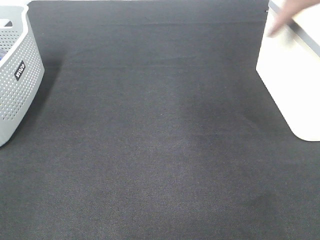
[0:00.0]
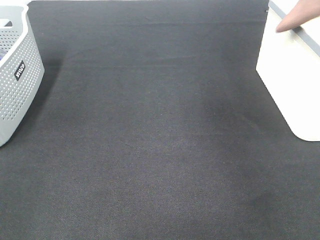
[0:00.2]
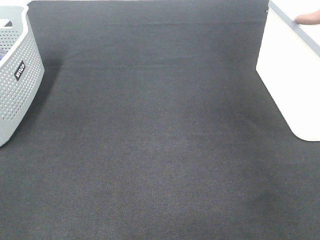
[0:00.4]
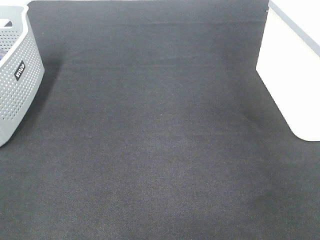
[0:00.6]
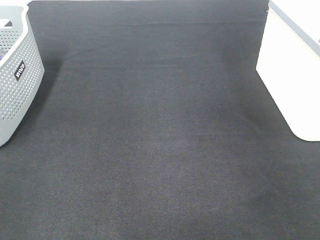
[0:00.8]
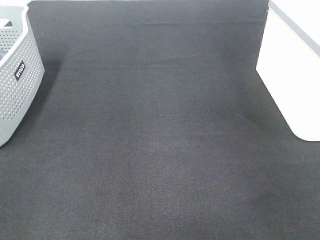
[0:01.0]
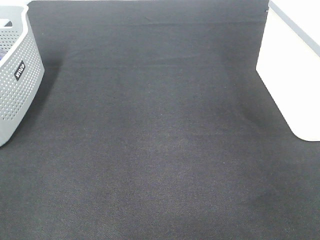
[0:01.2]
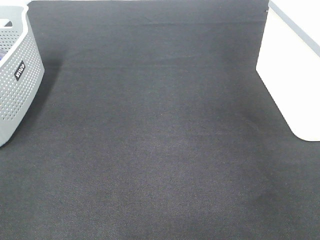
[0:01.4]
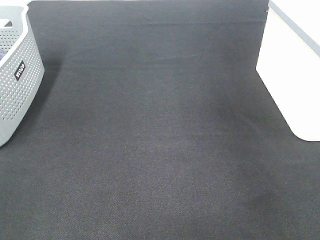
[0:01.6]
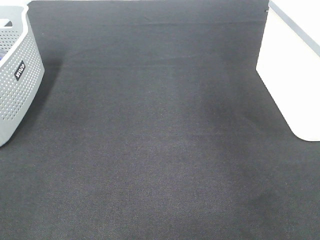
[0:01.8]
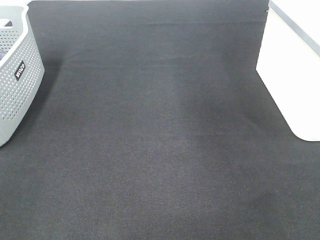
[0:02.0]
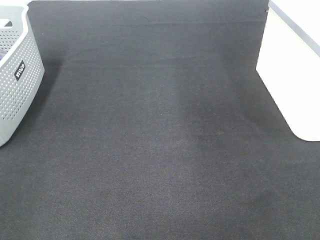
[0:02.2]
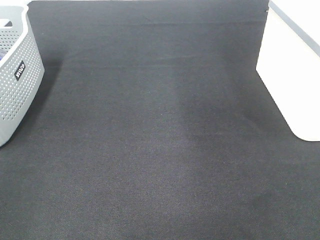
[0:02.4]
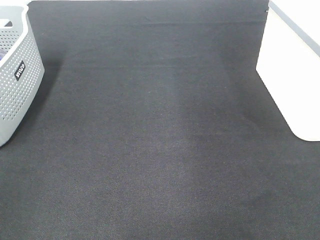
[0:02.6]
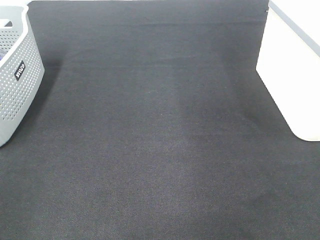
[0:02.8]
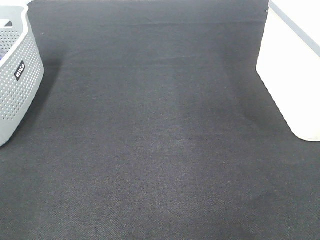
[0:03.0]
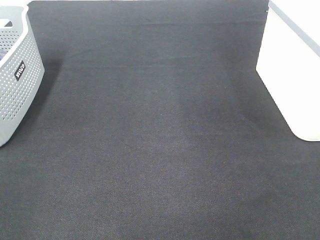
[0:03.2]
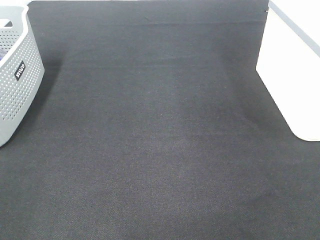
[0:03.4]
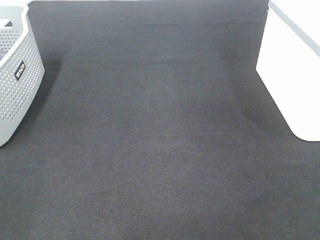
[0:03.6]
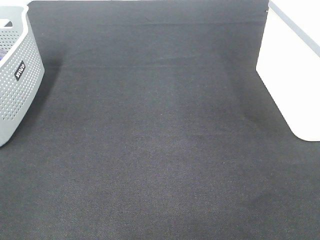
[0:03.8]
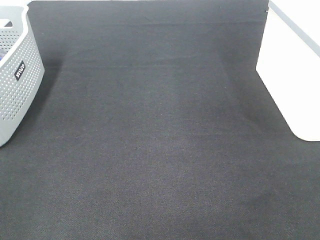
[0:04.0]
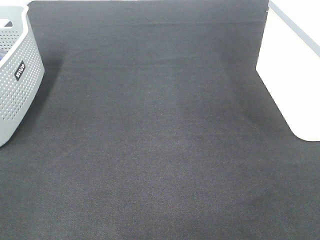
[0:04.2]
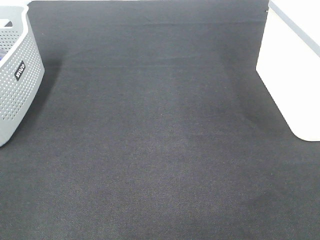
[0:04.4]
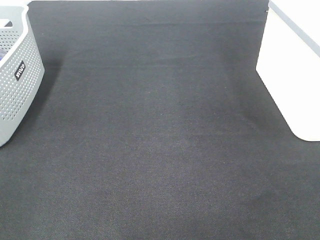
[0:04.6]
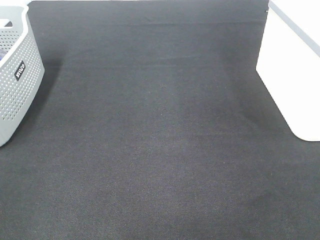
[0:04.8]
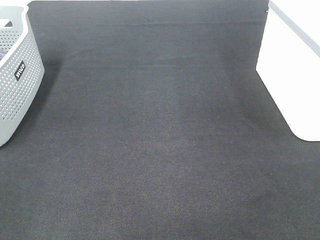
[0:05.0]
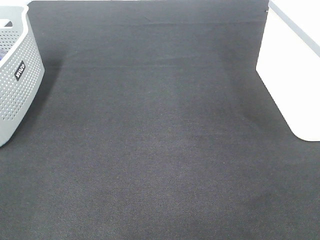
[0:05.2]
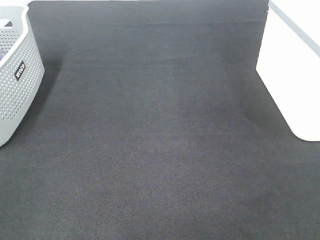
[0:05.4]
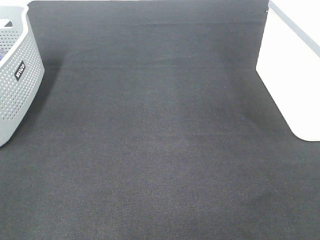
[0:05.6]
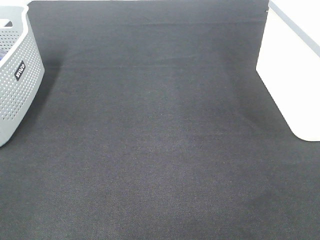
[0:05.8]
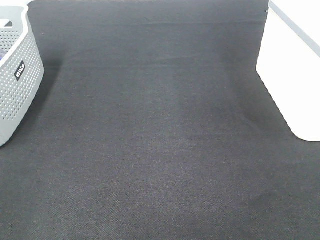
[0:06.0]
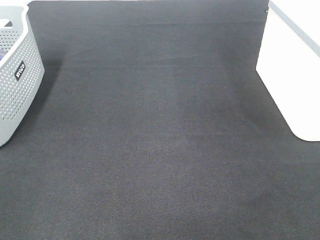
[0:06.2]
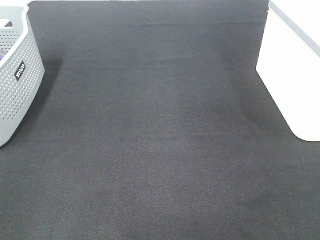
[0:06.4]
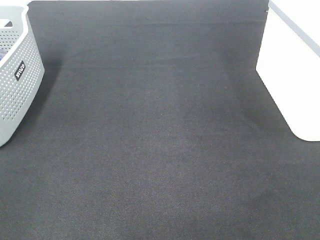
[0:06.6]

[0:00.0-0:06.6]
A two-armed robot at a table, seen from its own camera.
0:00.0 to 0:01.6: The right gripper goes to the right and returns, approximately 10 cm each way, and opens its fingers.
0:05.0 to 0:06.6: Both grippers stay put.

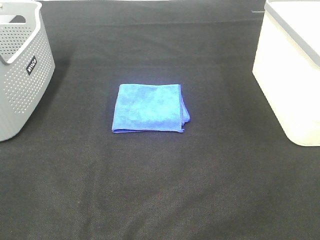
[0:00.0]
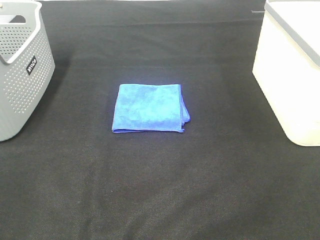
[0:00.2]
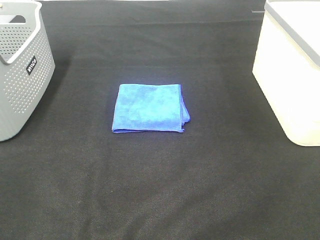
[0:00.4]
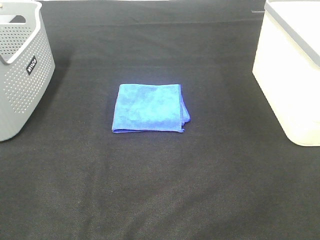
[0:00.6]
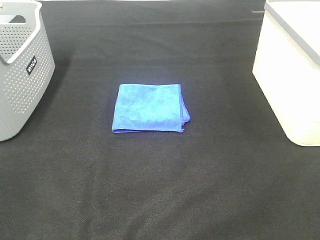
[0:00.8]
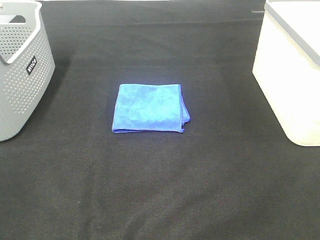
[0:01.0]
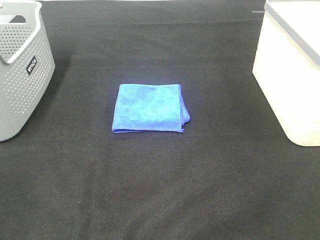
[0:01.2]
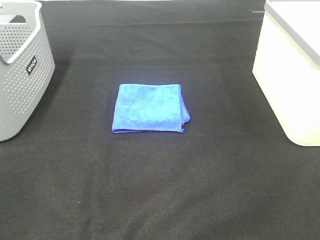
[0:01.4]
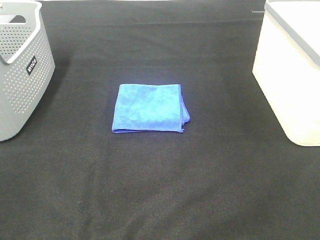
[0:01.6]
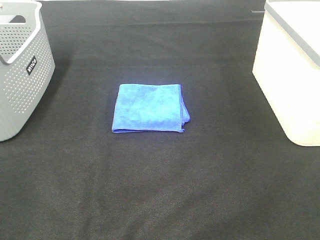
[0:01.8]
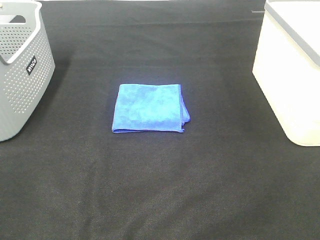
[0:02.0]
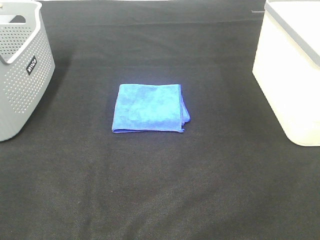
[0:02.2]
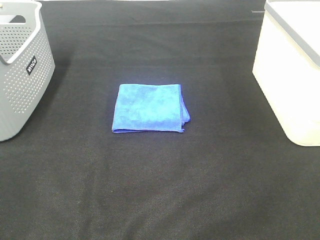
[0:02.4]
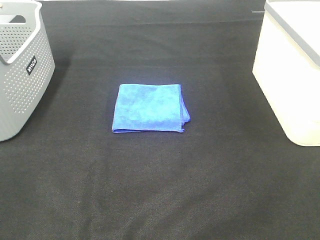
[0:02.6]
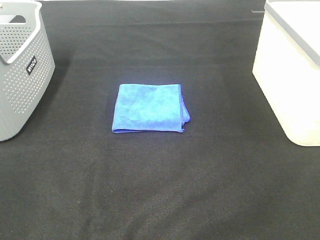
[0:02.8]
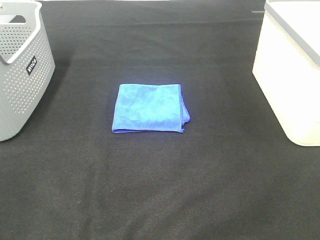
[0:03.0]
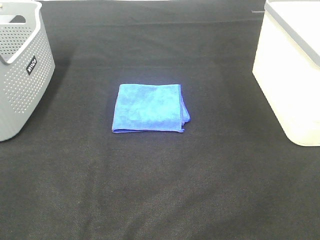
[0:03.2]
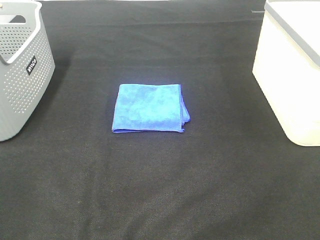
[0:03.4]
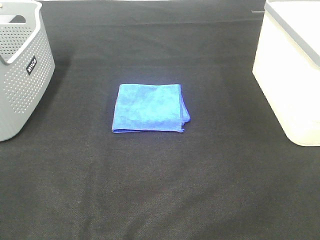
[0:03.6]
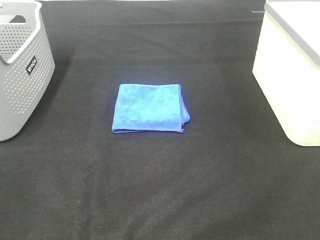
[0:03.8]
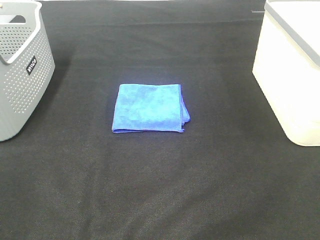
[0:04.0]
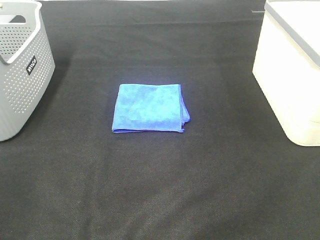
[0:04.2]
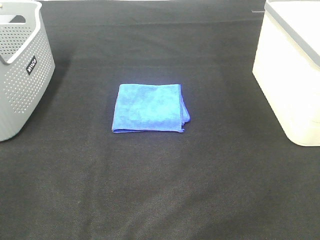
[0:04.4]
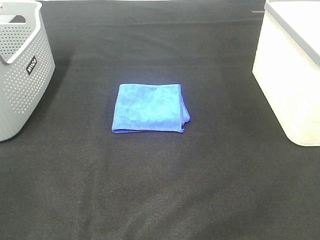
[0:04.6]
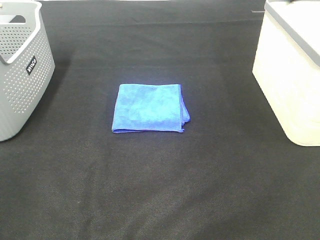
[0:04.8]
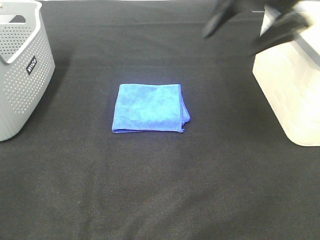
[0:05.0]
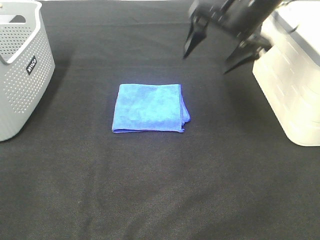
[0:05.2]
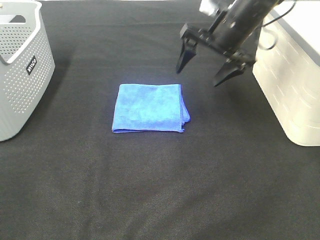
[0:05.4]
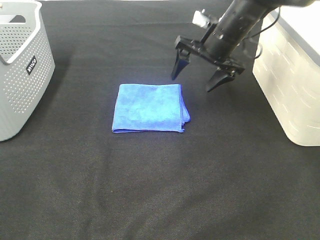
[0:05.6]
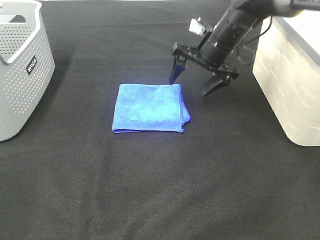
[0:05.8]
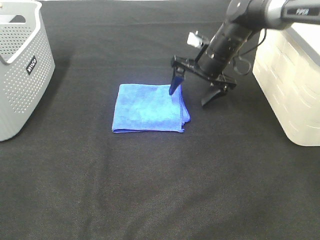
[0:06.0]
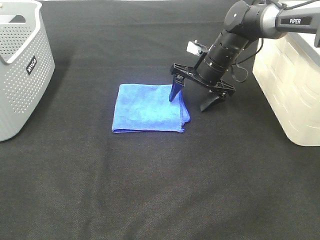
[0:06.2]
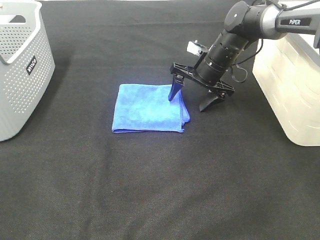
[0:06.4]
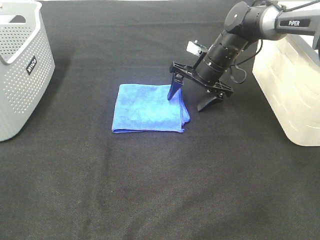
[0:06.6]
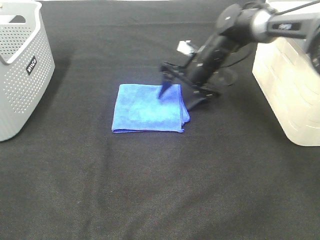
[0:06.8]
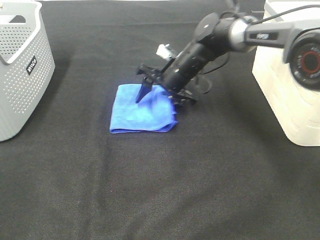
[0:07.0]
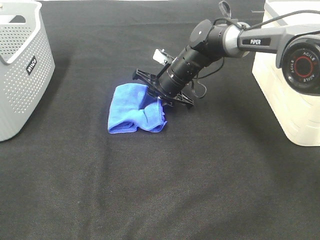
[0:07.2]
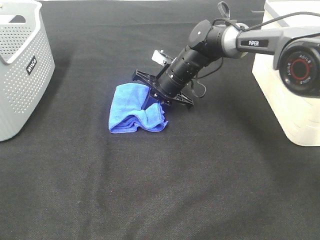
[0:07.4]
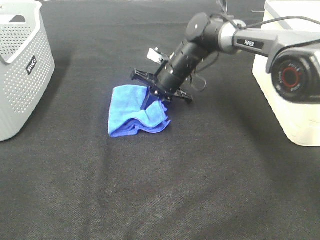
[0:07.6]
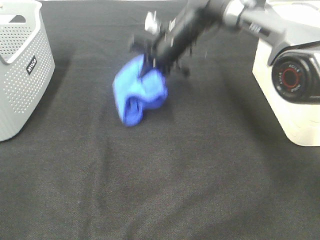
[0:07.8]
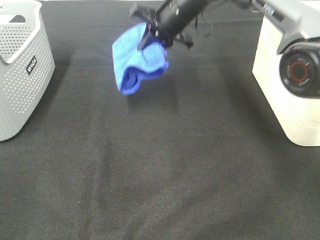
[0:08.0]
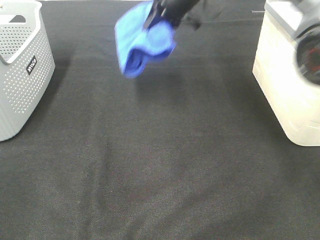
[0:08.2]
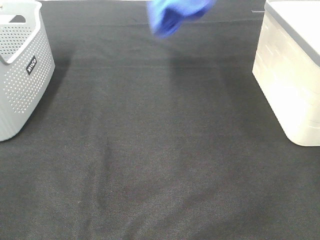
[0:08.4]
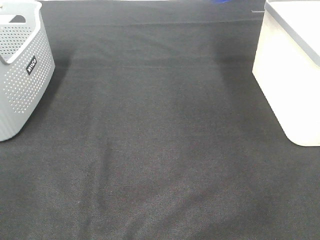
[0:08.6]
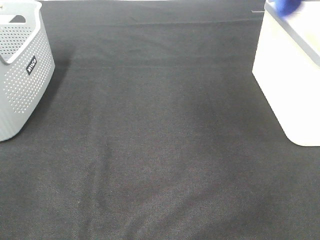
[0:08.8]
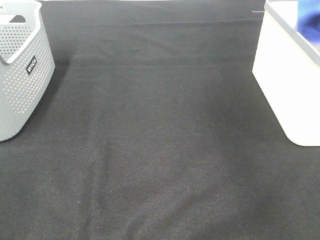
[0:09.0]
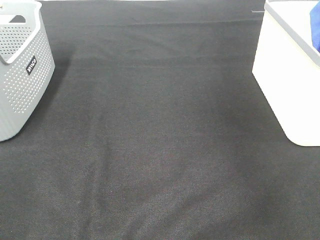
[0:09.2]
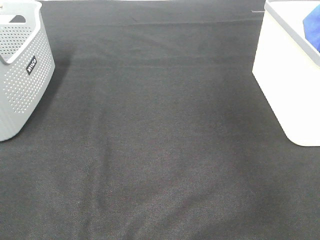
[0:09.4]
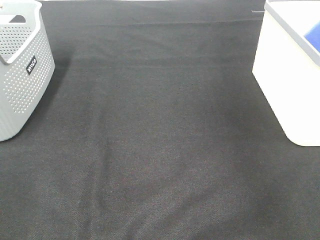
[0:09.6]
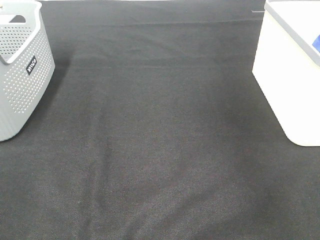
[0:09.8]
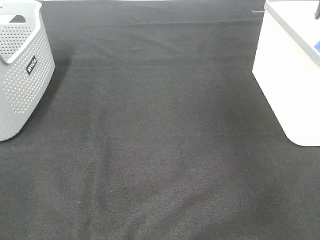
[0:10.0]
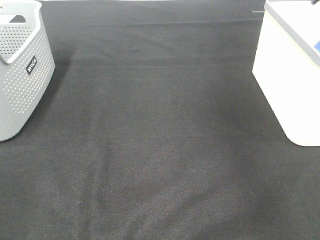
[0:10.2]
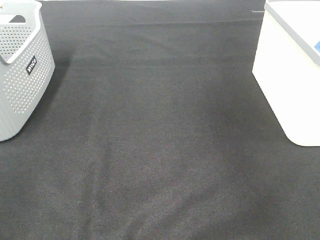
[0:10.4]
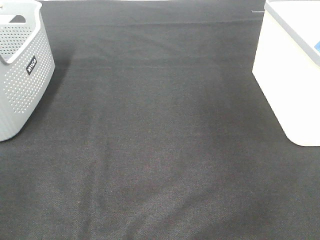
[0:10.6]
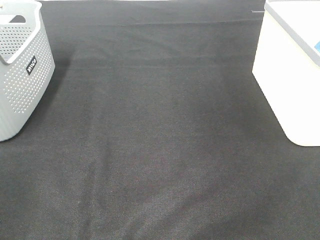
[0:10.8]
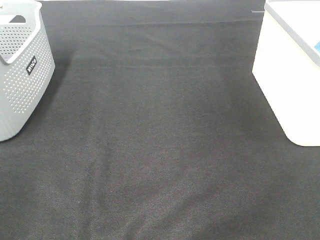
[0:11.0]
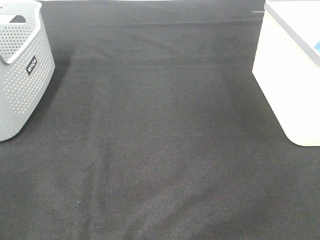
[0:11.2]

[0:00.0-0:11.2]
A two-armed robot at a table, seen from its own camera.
Step, 0:00.0 to 0:07.6: Right hand: grab the folded blue towel.
Step, 0:07.8 to 0:09.8: Right hand: place the blue towel in right basket.
0:00.0 to 0:03.2: Both grippers stay put.
0:04.8 to 0:06.4: The right gripper moves downward, forward and to the left, approximately 35 cm.
0:06.4 to 0:08.0: The right gripper travels upward and to the left by roughly 15 cm, and closes up.
0:08.0 to 0:09.6: The right gripper moves to the right, roughly 30 cm, and opens.

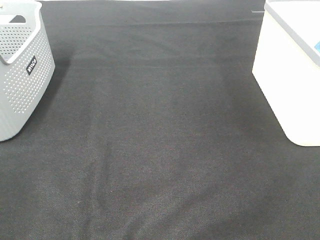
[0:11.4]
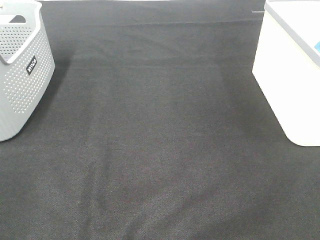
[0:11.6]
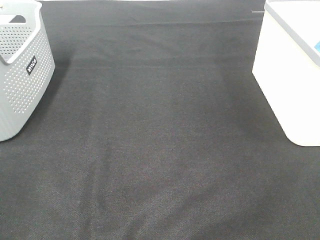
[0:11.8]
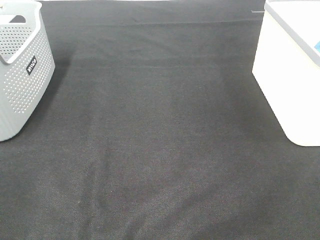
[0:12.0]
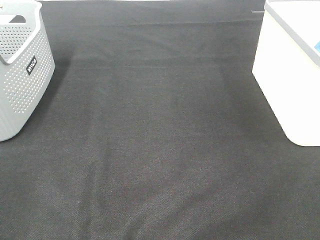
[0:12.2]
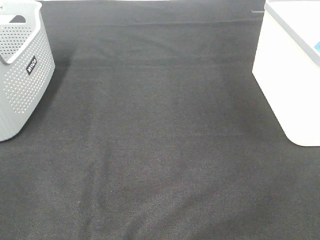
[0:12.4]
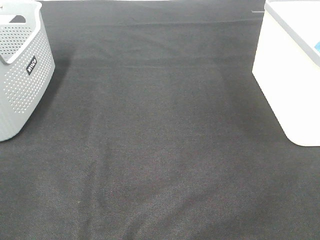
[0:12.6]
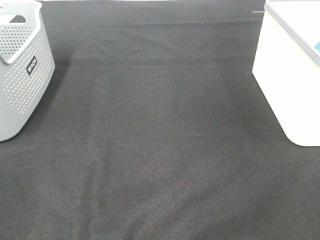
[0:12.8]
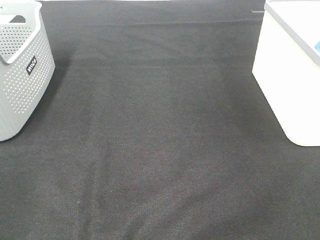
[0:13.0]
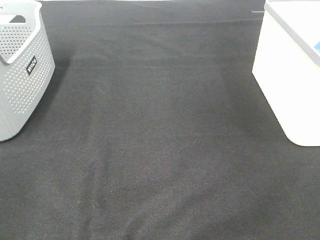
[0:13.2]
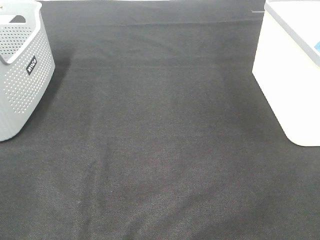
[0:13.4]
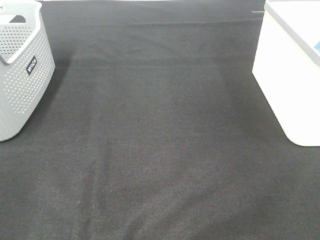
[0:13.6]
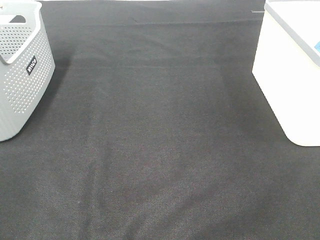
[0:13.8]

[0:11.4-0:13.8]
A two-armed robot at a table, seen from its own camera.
0:12.6 to 0:13.8: Both grippers stay put.

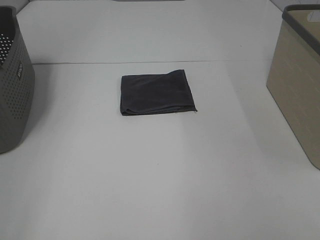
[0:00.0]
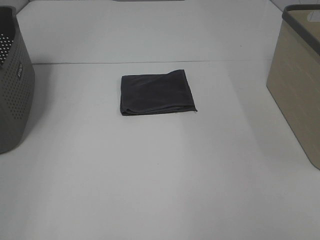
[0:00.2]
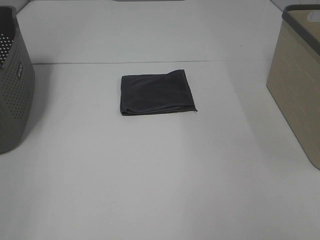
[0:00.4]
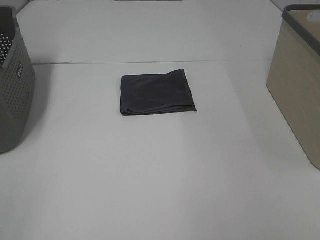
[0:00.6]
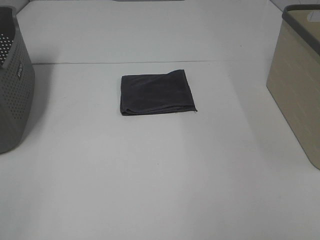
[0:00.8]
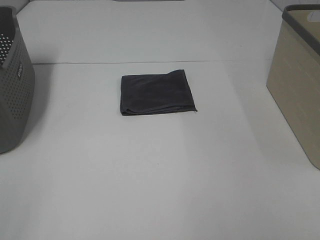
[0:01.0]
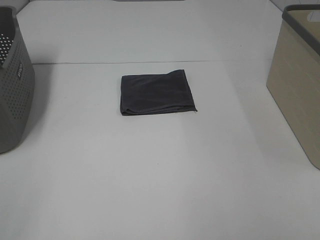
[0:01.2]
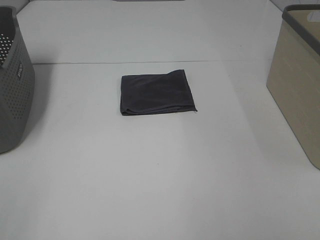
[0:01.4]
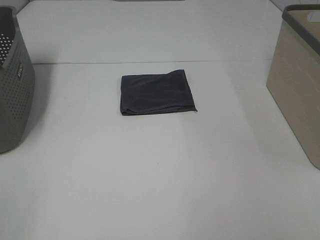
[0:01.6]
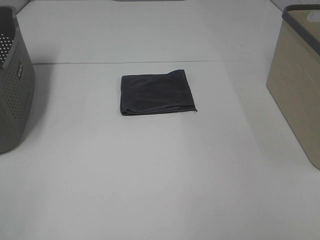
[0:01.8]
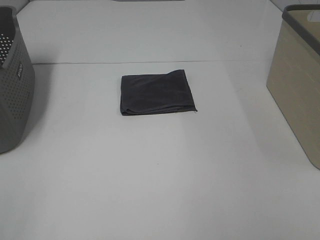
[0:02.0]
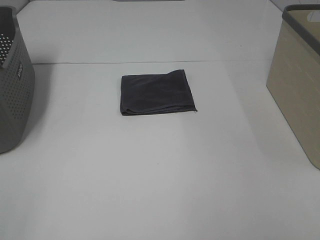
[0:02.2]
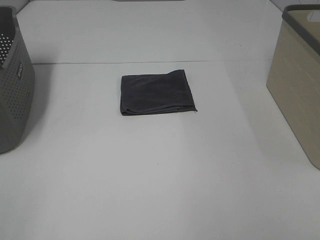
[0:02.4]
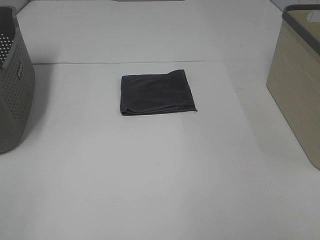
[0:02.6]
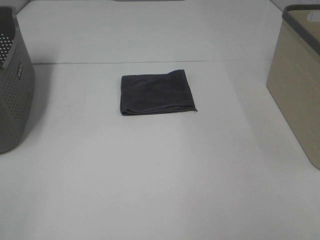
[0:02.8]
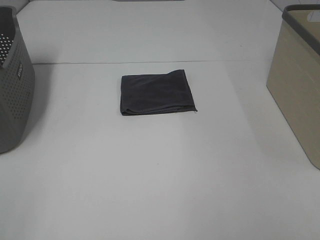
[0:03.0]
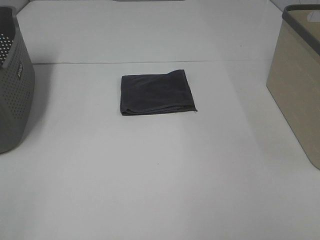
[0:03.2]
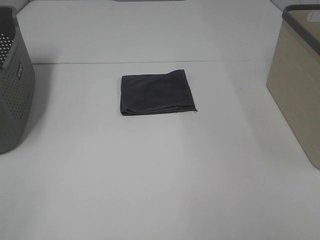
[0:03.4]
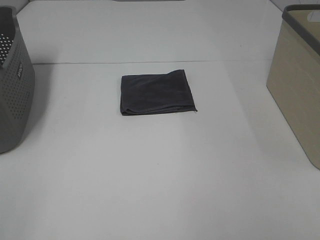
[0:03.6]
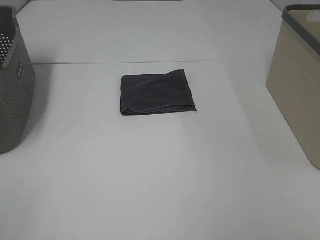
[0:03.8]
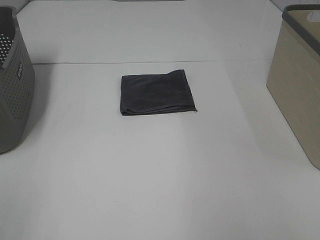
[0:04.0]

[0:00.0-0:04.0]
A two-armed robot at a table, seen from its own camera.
0:00.0 to 0:02.6: The two grippers keep their place.
